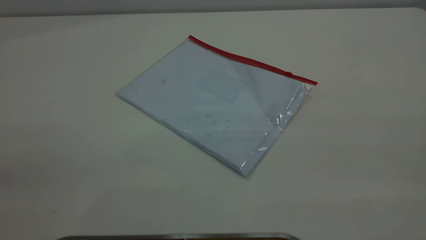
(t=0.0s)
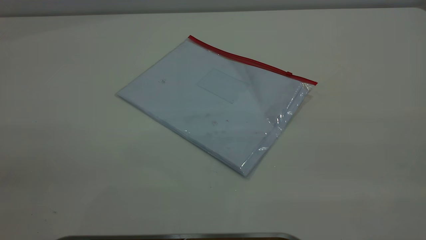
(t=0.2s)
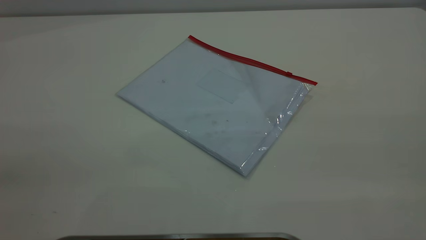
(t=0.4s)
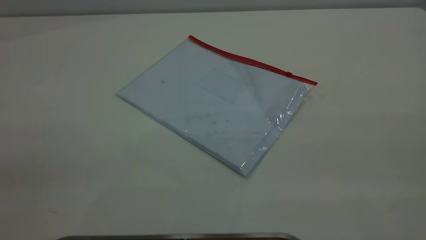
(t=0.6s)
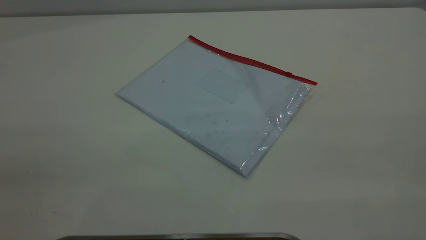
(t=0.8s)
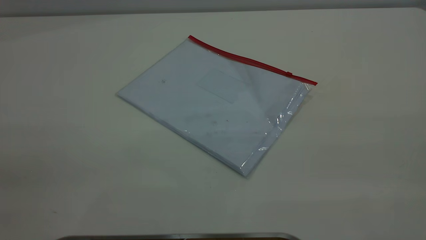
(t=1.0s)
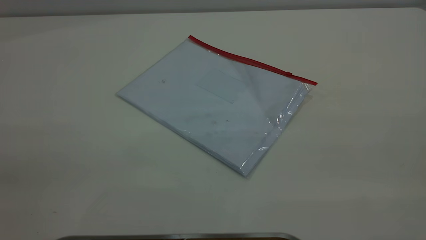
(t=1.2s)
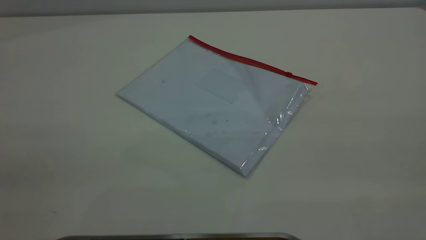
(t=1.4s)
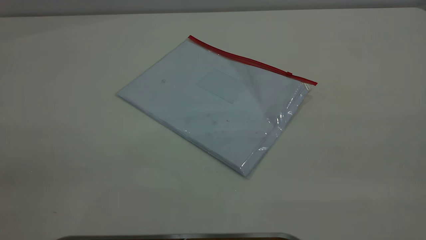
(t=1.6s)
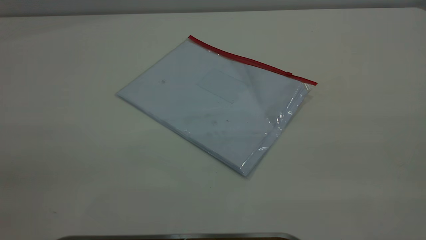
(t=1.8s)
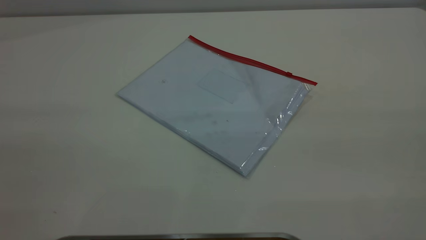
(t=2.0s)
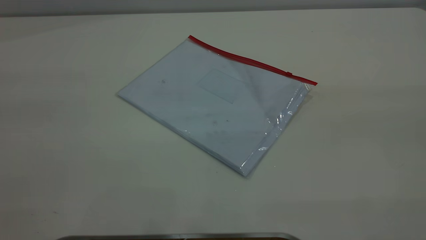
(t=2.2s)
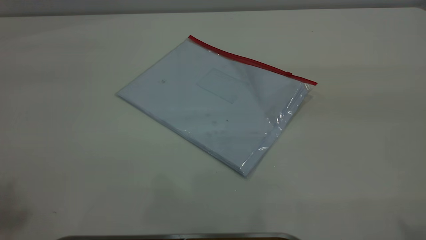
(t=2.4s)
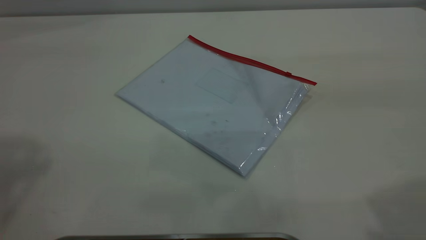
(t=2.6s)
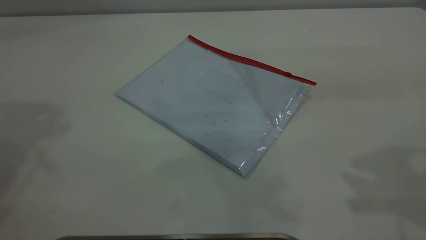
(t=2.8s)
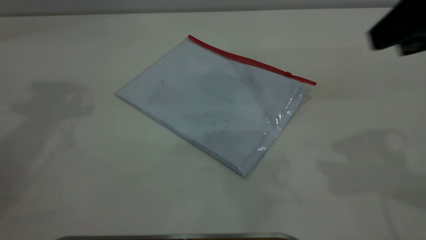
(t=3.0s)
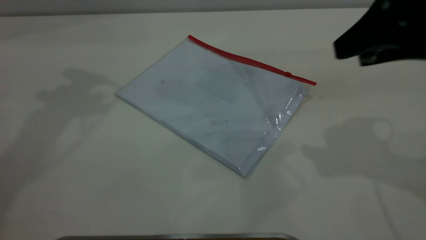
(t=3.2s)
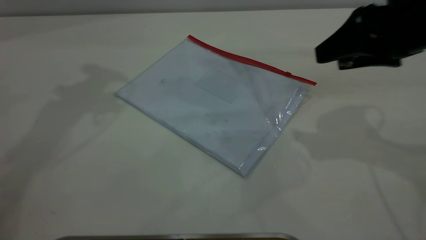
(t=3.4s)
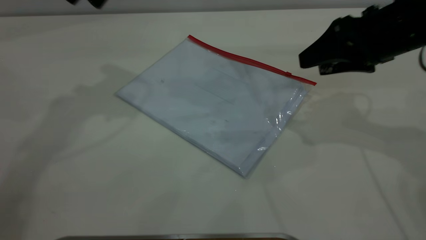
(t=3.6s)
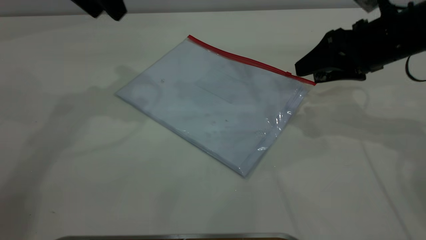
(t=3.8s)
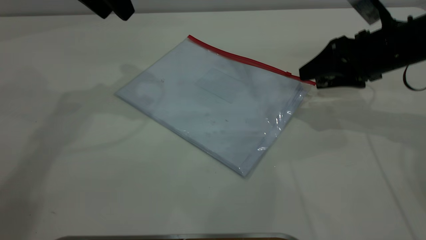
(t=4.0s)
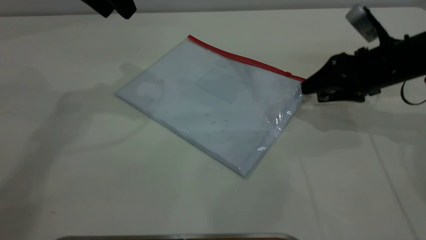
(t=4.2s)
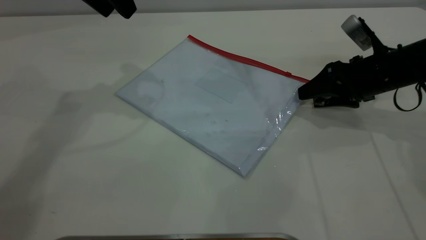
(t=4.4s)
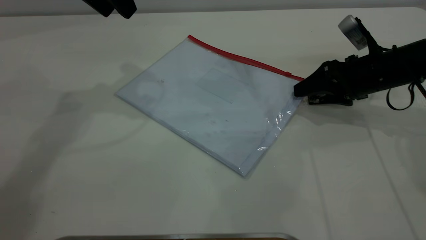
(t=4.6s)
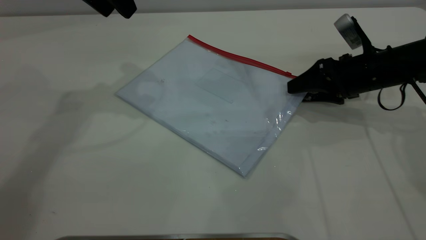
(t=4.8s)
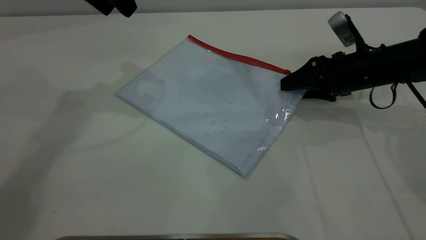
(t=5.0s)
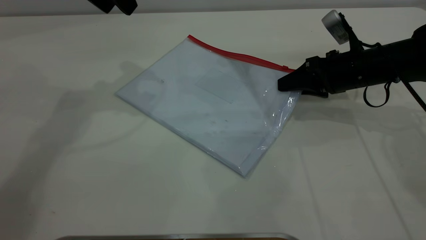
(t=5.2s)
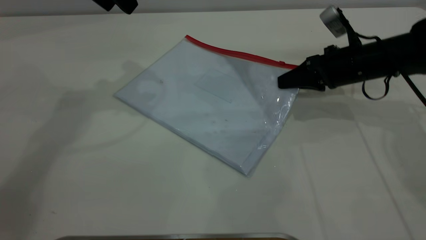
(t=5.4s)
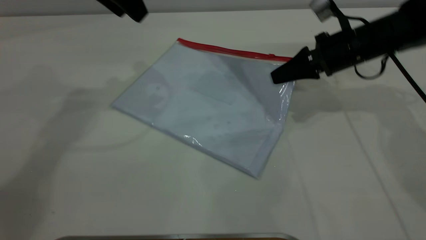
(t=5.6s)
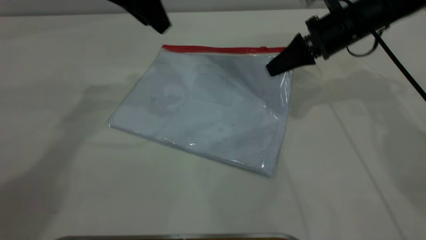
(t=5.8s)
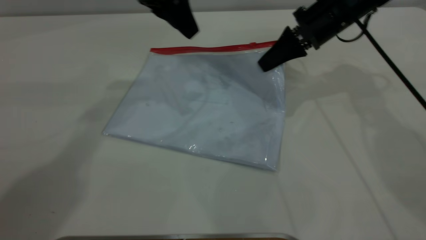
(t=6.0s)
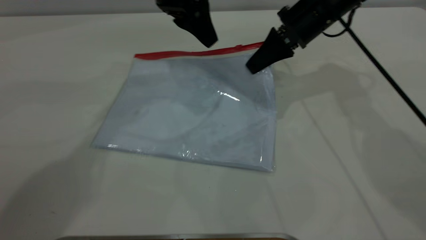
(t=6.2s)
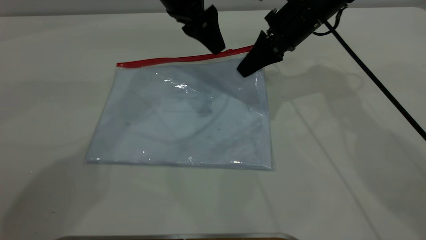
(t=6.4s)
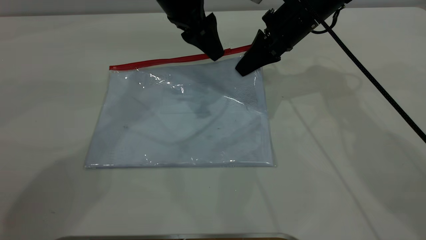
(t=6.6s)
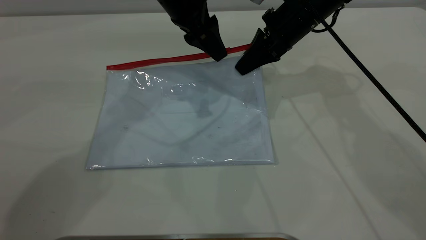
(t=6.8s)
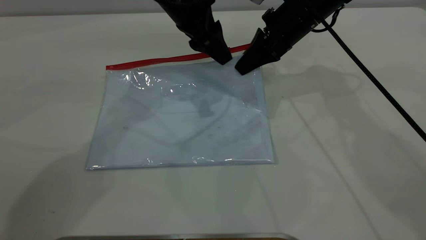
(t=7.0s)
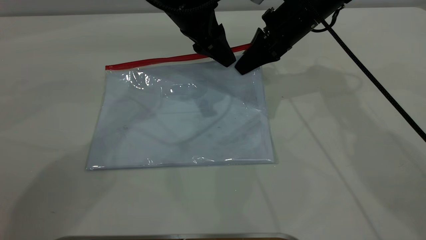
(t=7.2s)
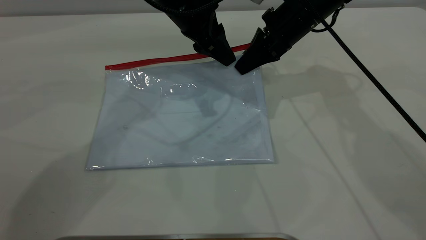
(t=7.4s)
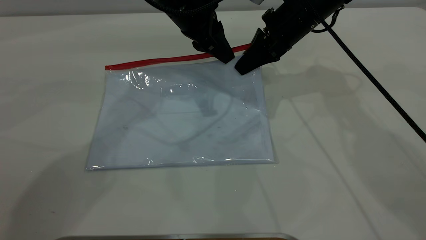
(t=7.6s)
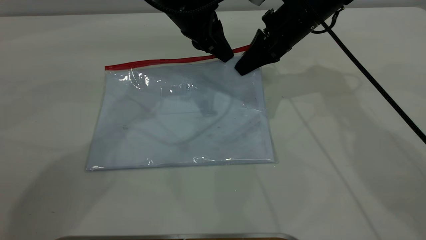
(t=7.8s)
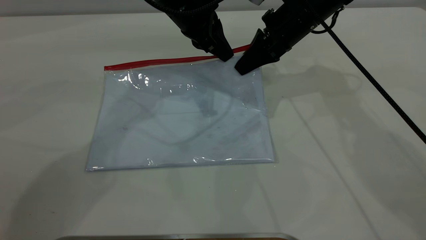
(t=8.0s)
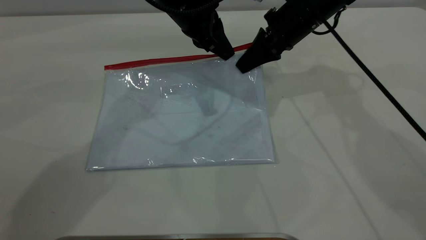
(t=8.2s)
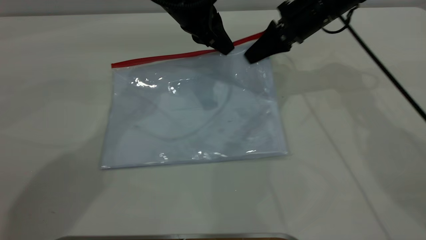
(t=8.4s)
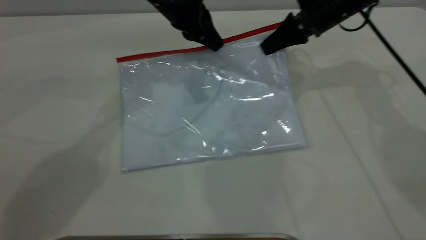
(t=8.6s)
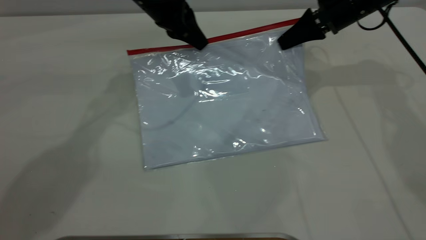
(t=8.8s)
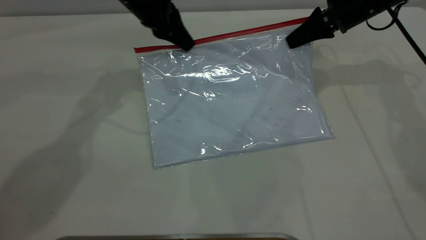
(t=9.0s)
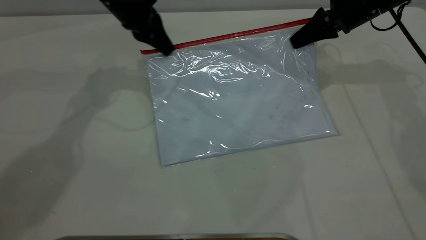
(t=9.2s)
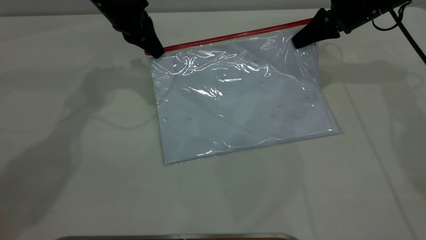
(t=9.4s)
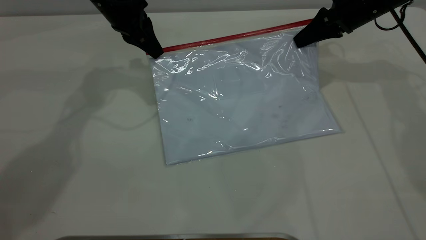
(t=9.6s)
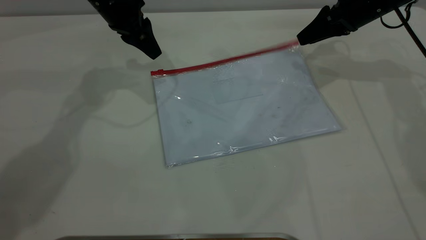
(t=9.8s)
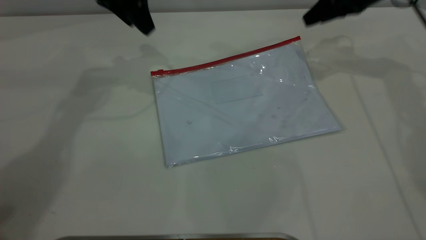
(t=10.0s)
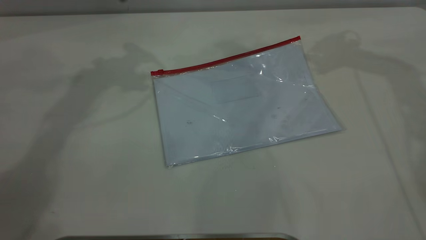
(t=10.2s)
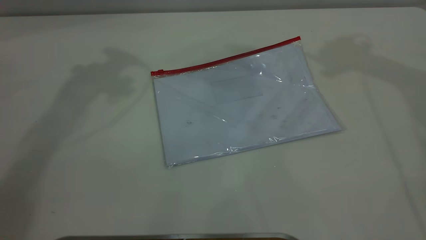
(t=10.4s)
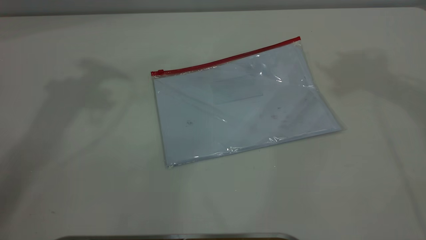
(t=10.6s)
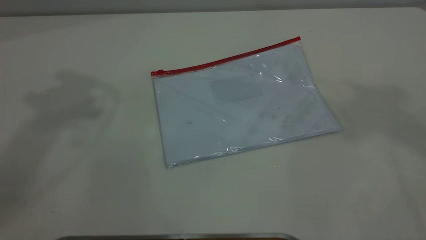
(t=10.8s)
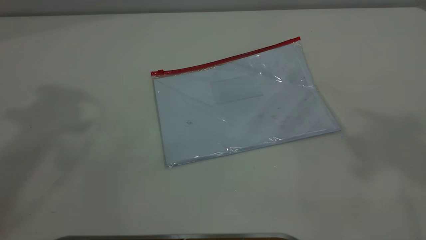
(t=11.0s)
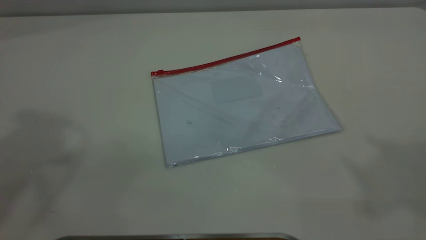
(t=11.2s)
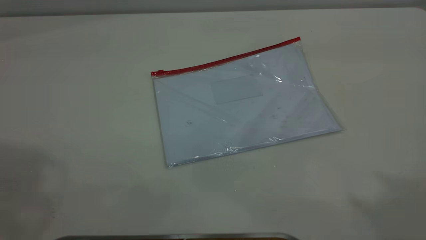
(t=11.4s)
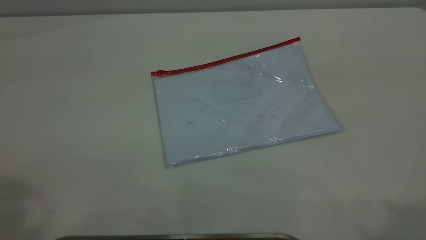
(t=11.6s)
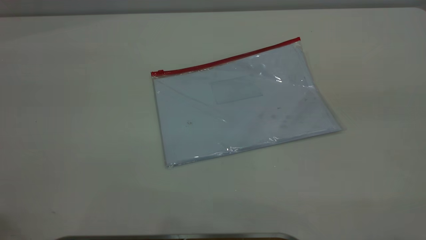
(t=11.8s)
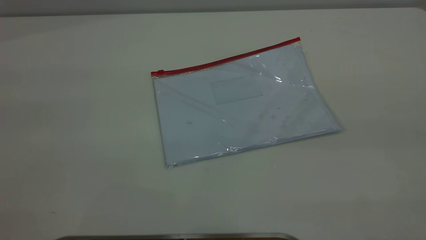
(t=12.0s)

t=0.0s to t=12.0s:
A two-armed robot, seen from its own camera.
Step, t=0.0s to t=5.8s: Pick up the transparent plastic bag with the right gripper.
Step, t=6.0s to t=9.6s: Pulling up the zipper on the transparent plastic bag with the left gripper to close it.
Step, t=9.8s to t=10.0s: Place the transparent plastic bag.
t=0.0s to t=1.6s: Both grippers stay put.
t=1.6s to t=3.0s: The right gripper goes some 25 cm forward.
t=3.0s to t=4.4s: The right gripper shifts roughly 25 cm downward and forward, while the left gripper moves downward and to the right, some 10 cm.
t=4.4s to t=6.0s: The left gripper shifts roughly 10 cm to the right and downward. The right gripper travels to the left, forward and upward by some 15 cm, and closes.
t=6.0s to t=7.6s: The left gripper moves downward, roughly 5 cm, and closes up.
t=7.6s to t=9.0s: The left gripper shifts approximately 10 cm to the left. Meanwhile the right gripper heads to the right, covering roughly 10 cm.
t=9.0s to t=10.4s: Both grippers travel together upward, about 25 cm. The right gripper opens up; the left gripper opens up.
